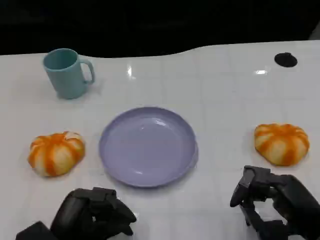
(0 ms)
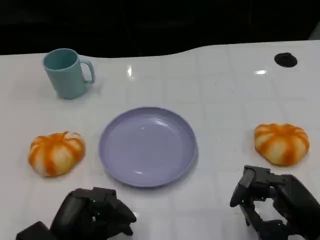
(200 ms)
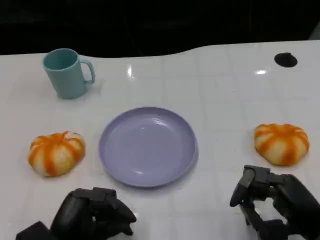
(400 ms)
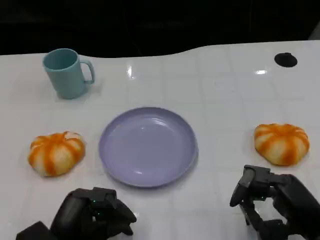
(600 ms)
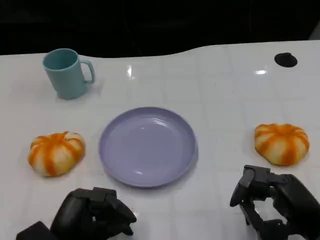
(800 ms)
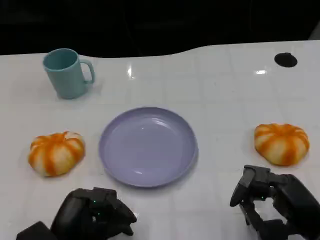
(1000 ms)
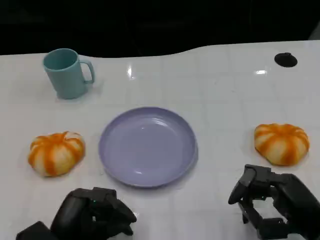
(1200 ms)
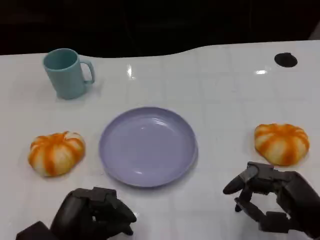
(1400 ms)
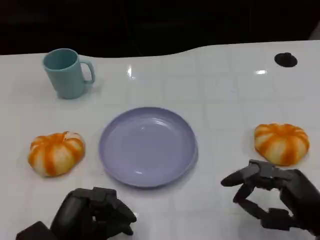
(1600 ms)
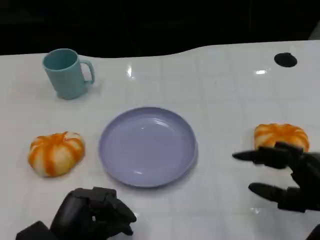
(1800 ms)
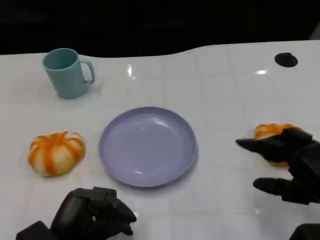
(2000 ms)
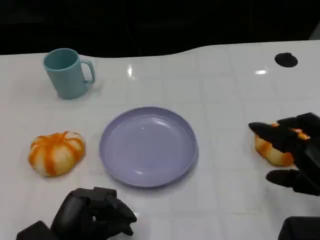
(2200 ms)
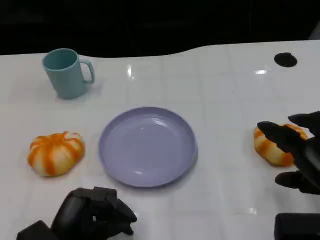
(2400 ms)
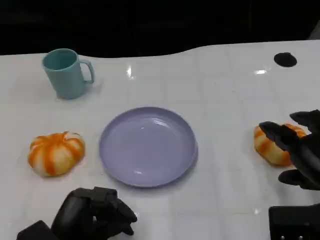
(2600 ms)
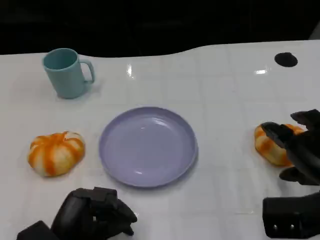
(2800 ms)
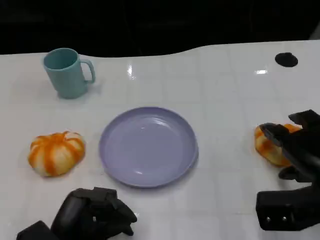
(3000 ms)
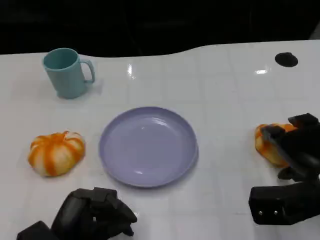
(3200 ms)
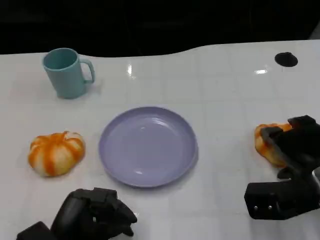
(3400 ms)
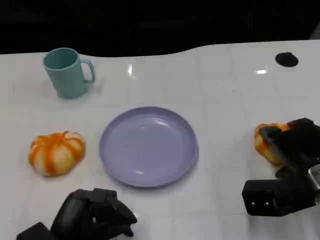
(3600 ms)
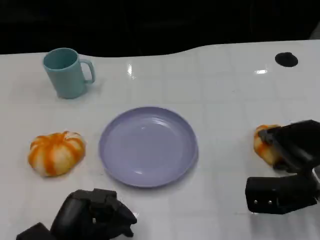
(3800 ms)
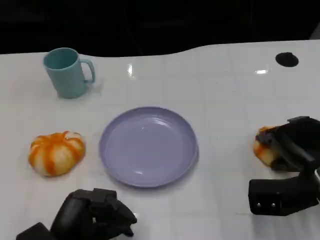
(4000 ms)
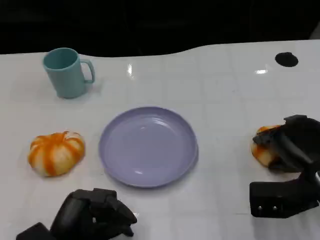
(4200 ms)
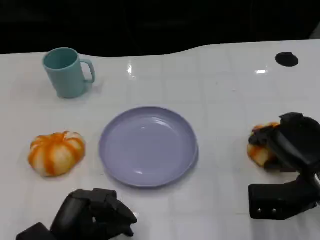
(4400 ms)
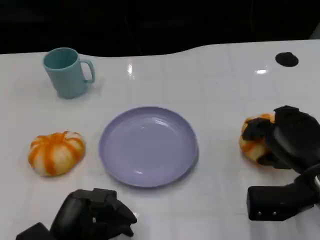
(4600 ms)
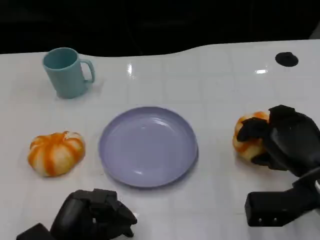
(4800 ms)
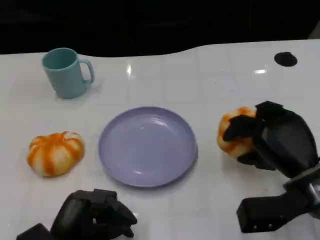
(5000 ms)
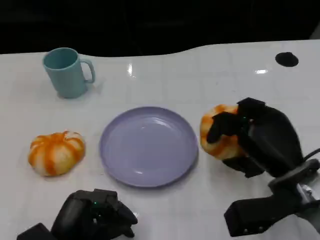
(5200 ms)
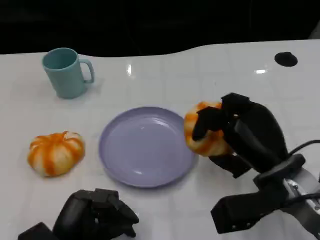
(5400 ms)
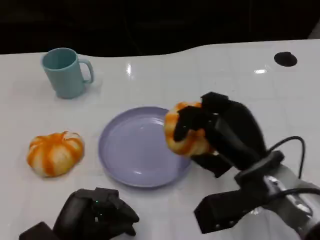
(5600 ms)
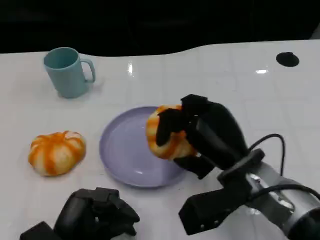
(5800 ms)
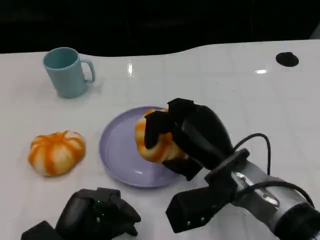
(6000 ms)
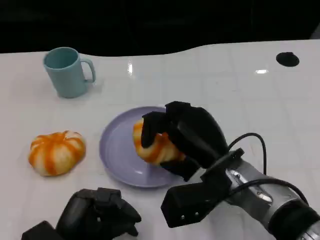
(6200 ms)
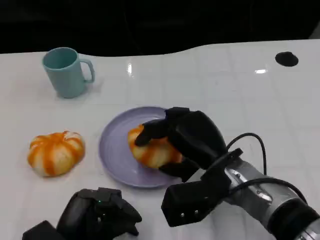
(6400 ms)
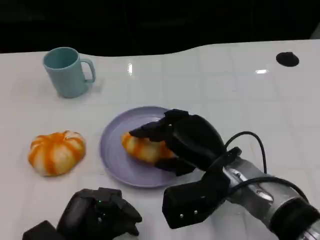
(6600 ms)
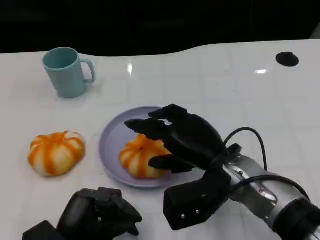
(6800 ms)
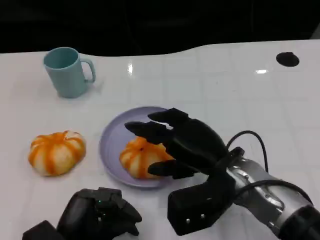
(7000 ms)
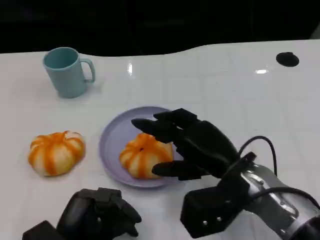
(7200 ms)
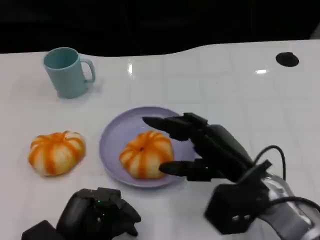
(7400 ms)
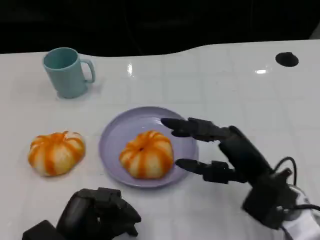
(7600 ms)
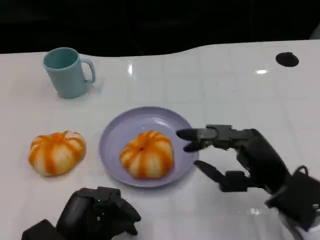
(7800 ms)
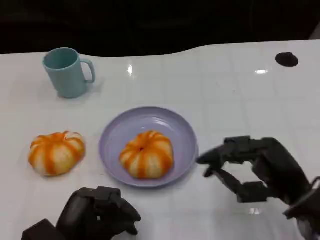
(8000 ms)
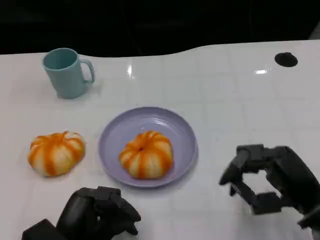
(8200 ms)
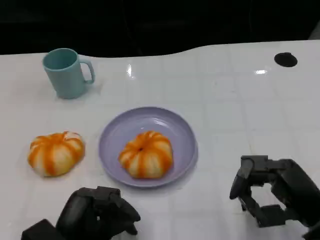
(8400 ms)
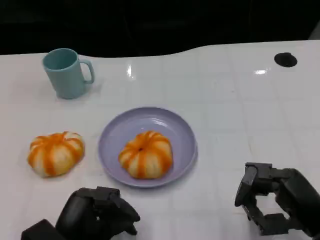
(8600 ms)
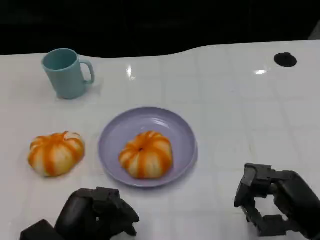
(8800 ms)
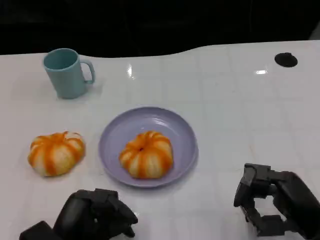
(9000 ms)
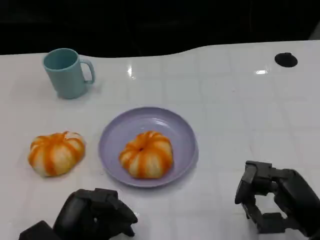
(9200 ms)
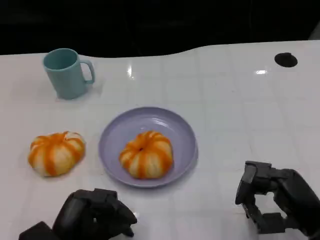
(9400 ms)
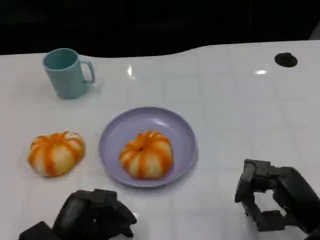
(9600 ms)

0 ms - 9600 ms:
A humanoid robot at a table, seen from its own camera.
Task of the whole recording: Grasp the bread from the table and place it into the plate.
0 ms - 1600 ms: There are only small adjustments of the hands.
1600 ms - 3200 ms: The right hand moves forward, approximately 5 cm.
4800 ms - 6400 ms: The right hand goes some 15 cm to the left.
6400 ms - 8000 ms: The right hand shifts some 15 cm to the right and backward.
8000 ms - 9600 ms: The hands make only small movements.

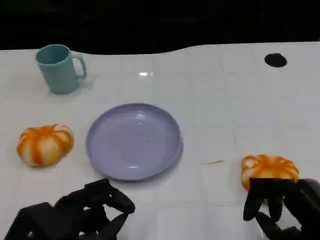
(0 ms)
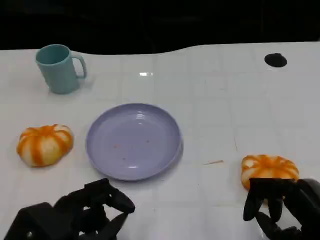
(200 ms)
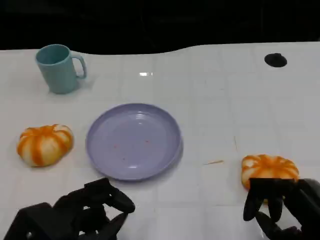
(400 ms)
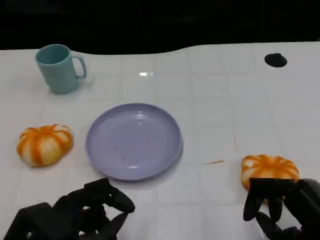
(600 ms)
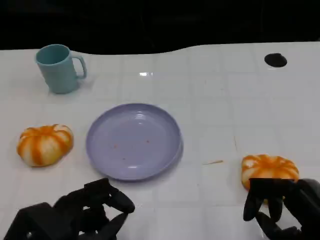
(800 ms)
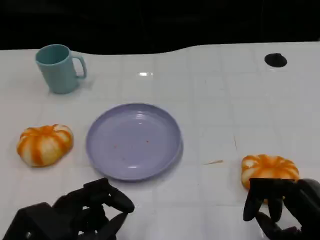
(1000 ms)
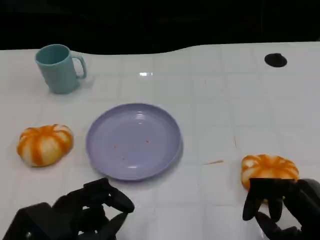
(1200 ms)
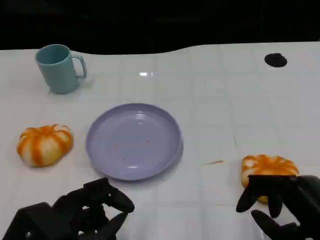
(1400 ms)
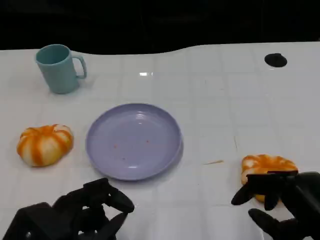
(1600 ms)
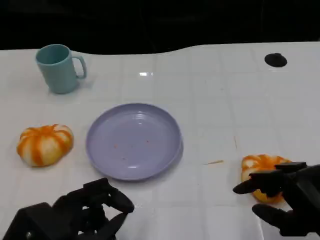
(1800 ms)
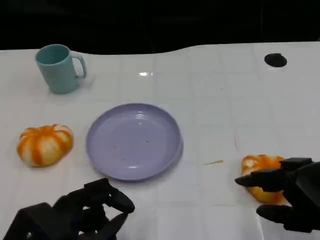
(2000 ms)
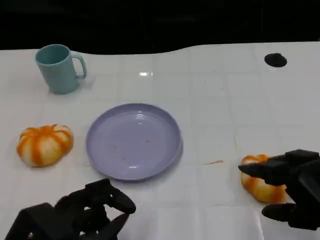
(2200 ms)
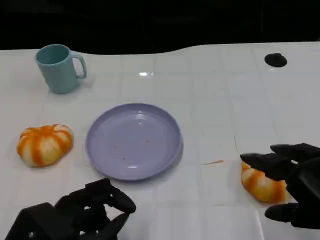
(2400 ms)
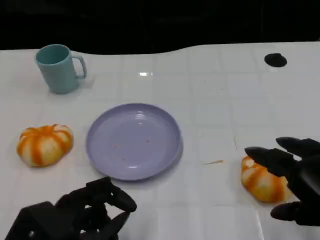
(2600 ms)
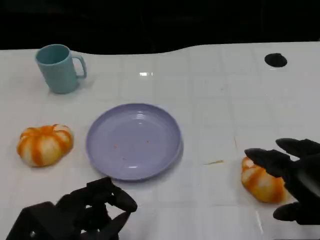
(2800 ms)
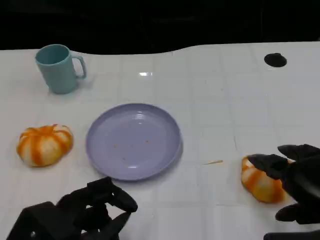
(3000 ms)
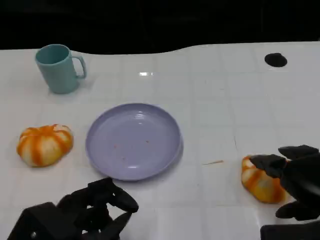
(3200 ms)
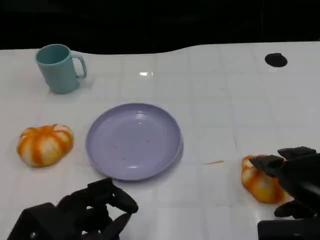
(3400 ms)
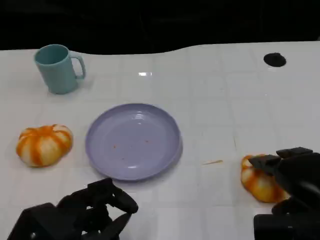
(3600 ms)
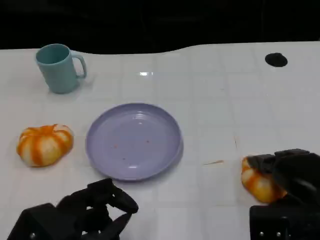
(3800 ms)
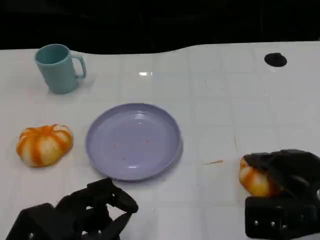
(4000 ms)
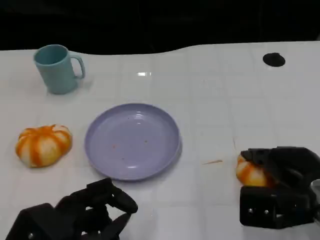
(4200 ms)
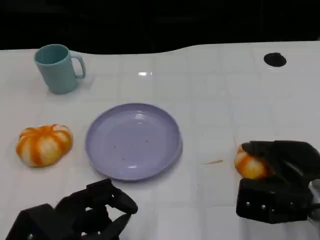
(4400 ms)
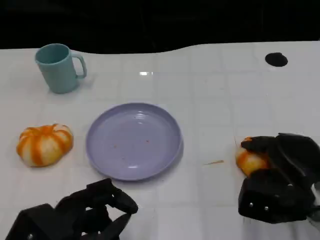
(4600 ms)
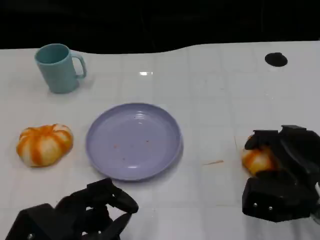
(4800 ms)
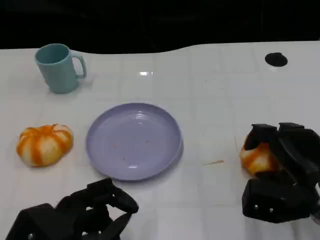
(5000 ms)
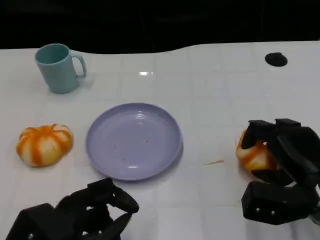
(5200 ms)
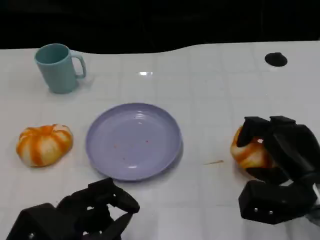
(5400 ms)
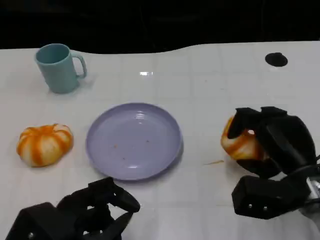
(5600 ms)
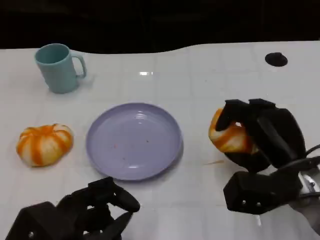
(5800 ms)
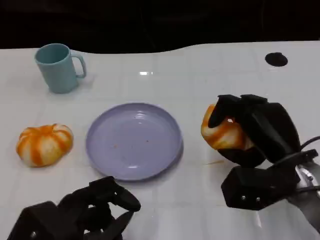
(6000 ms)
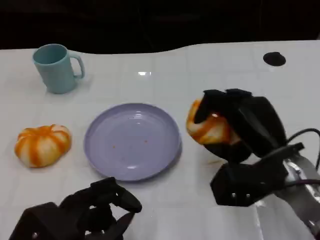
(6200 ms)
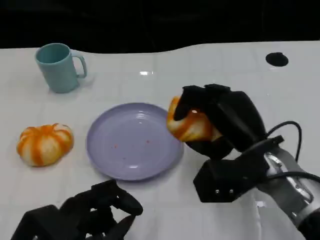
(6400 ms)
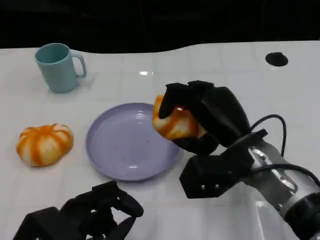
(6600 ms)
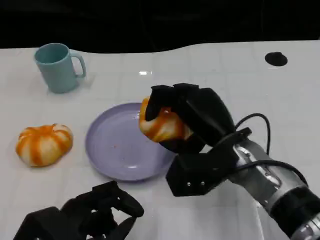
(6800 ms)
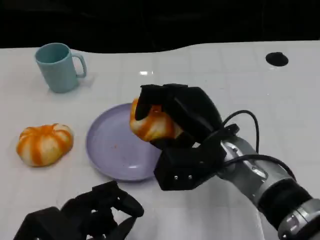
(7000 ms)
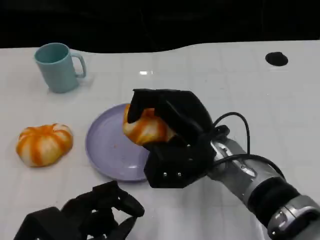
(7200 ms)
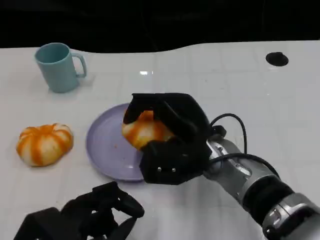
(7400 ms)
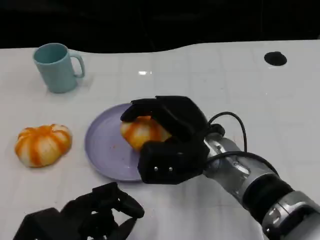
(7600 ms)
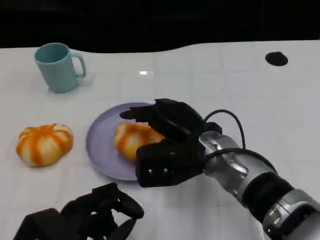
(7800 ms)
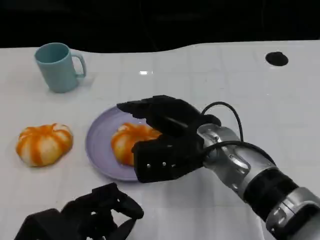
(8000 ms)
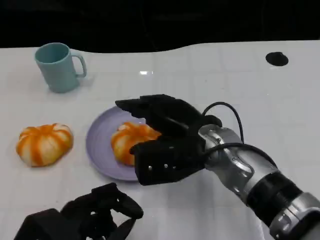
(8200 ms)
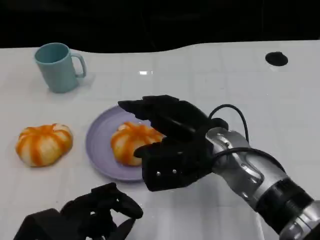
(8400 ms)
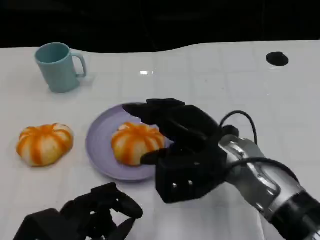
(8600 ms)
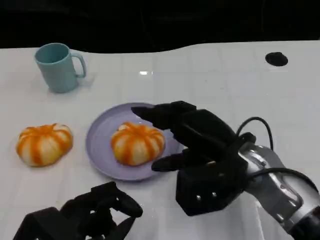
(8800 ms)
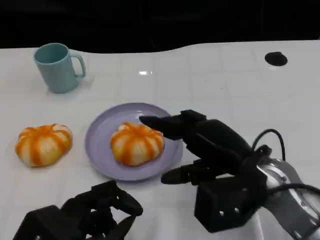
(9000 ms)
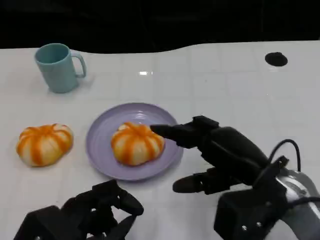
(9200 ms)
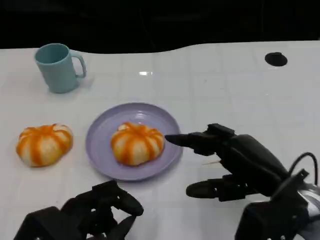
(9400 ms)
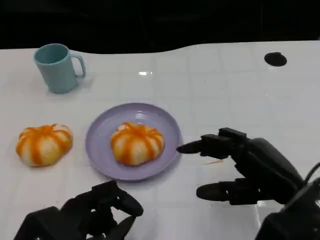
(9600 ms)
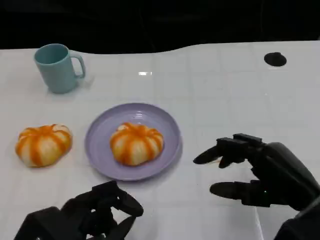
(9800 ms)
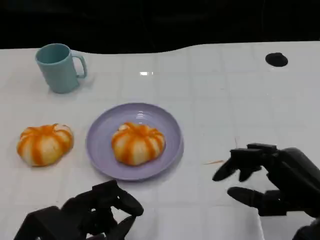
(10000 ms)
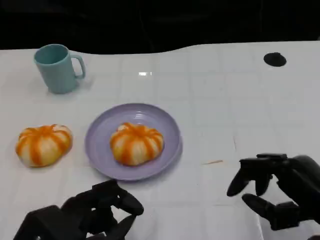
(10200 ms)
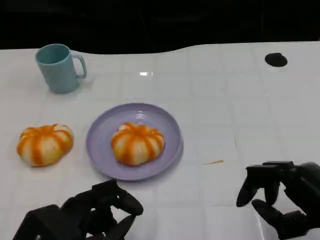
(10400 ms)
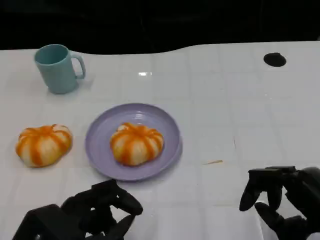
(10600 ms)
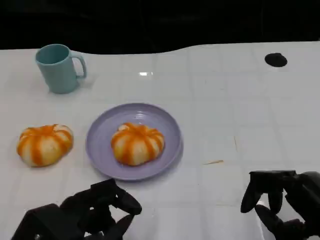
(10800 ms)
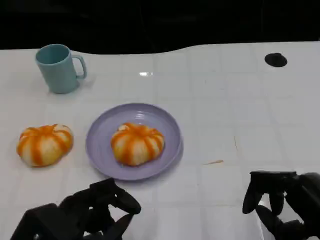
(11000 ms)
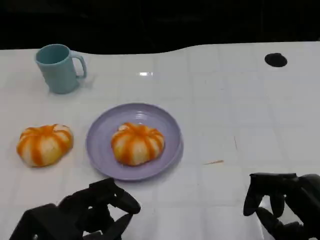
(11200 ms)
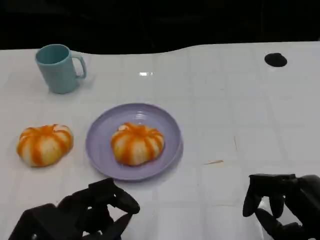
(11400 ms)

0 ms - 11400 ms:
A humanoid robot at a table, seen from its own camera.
Task of the whole recording: Grasp the bread from the table and place it into the plate.
0 ms - 1400 ms: The hands stay close to where they were, moving slightly.
1400 ms - 2800 ms: The right hand shifts approximately 5 cm upward.
2800 ms - 4200 ms: The right hand shifts approximately 10 cm forward and downward.
5600 ms - 7200 ms: The right hand heads to the left, covering roughly 15 cm.
8600 ms - 10000 ms: The right hand shifts about 15 cm to the right and backward.
10000 ms - 11400 ms: The hands stay close to where they were, moving slightly.

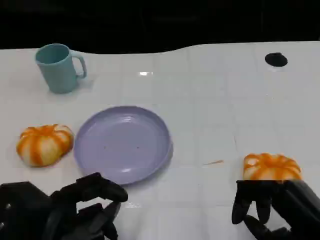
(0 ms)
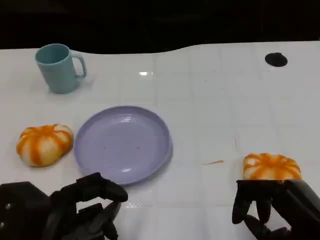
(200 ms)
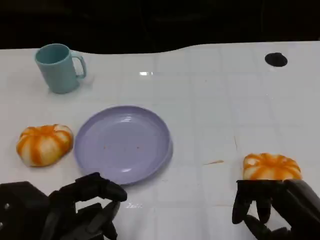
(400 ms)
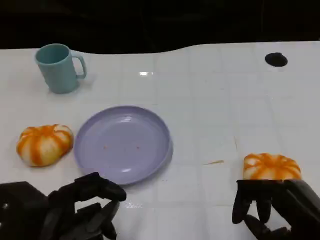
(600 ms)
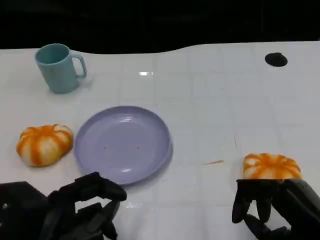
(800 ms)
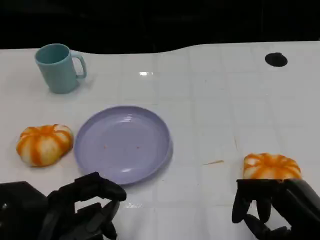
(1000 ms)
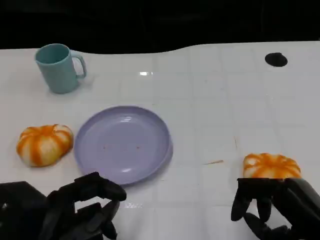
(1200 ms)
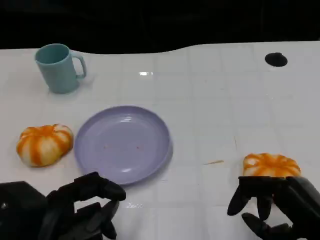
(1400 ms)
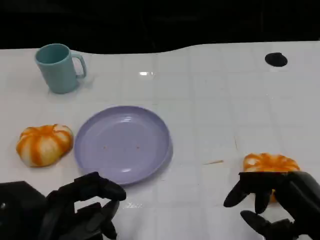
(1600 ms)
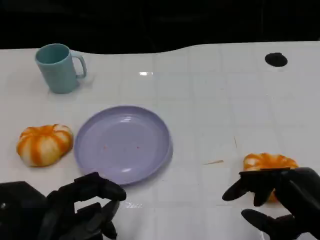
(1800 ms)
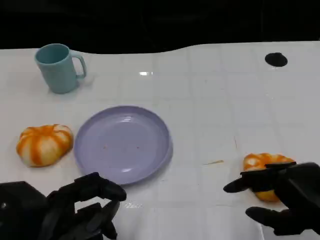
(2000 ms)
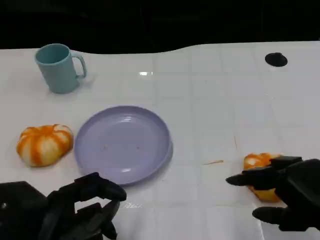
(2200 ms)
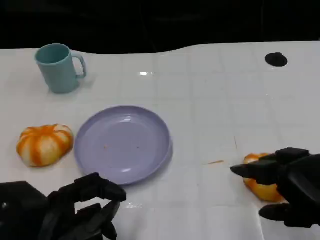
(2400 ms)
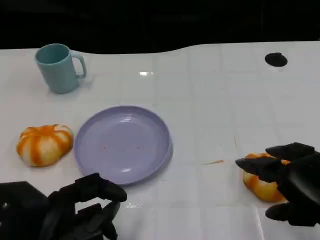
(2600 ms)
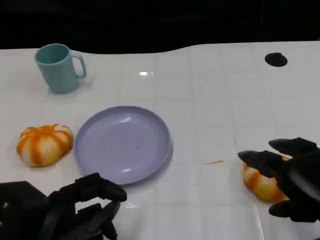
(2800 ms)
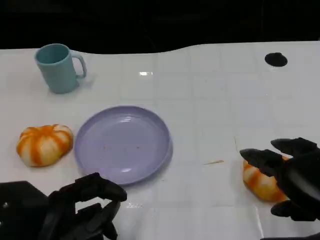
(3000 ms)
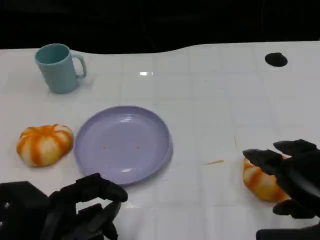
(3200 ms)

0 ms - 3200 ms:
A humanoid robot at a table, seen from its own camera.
Task of the whole recording: Grasp the bread from the table and place it into the plate.
0 ms - 1600 ms: The hands stay close to where they were, moving slightly.
